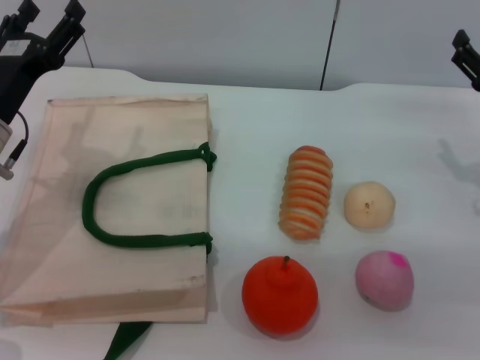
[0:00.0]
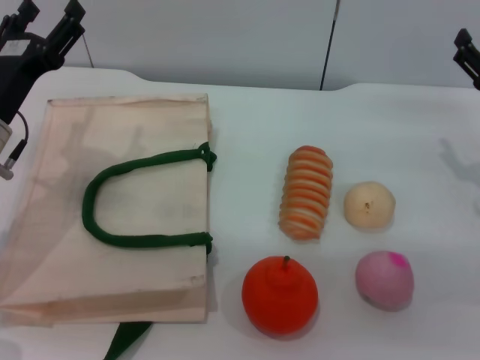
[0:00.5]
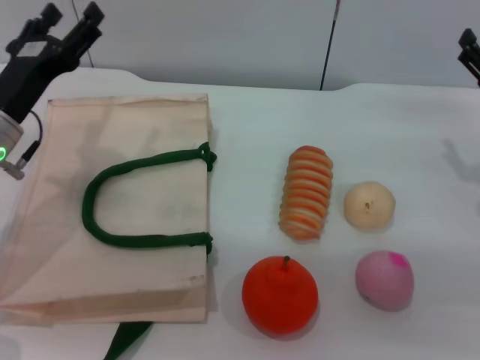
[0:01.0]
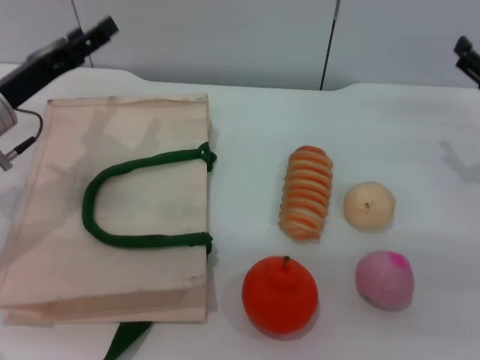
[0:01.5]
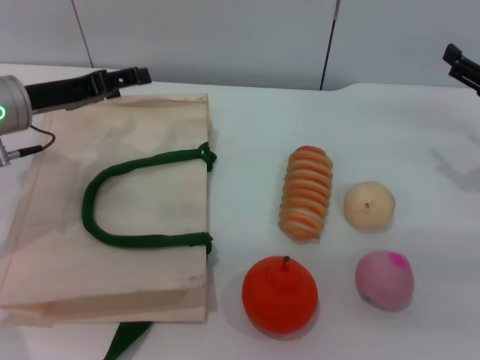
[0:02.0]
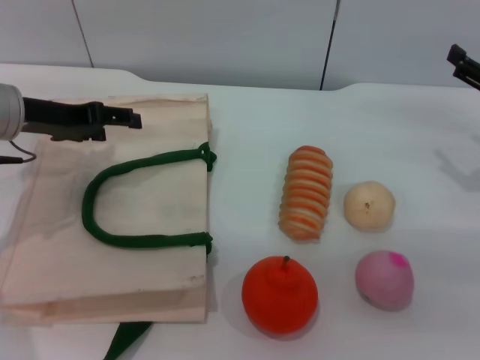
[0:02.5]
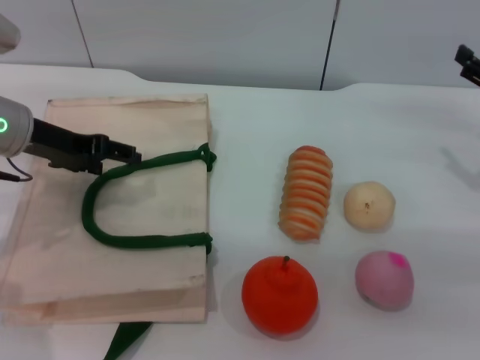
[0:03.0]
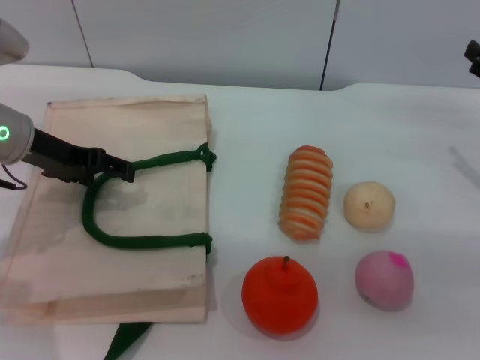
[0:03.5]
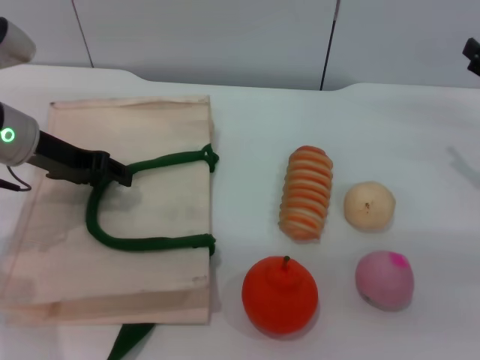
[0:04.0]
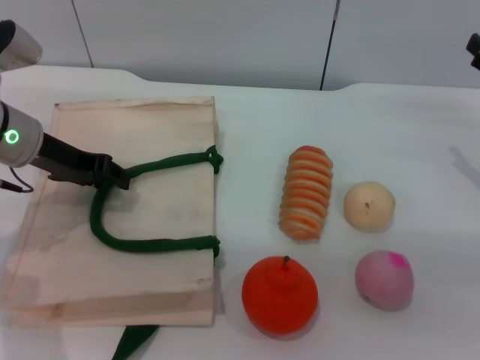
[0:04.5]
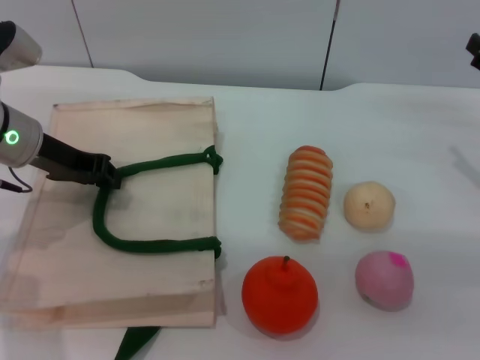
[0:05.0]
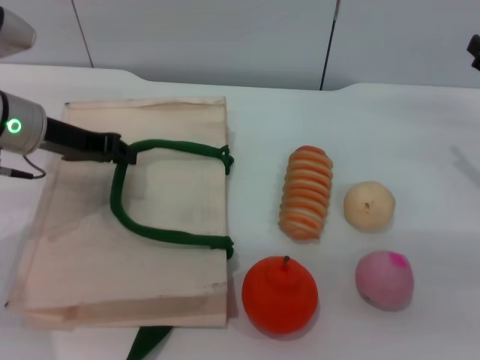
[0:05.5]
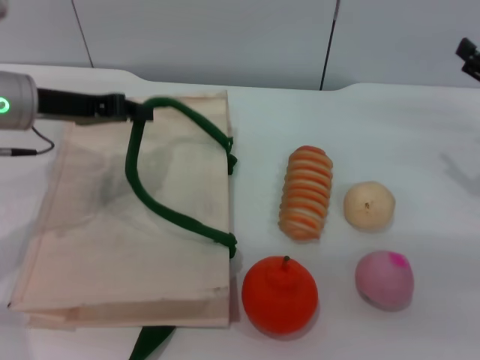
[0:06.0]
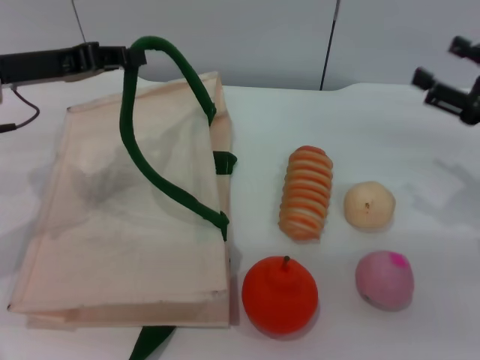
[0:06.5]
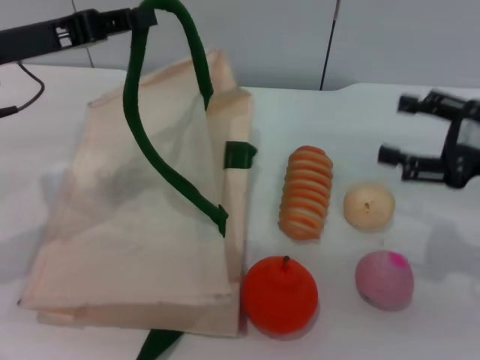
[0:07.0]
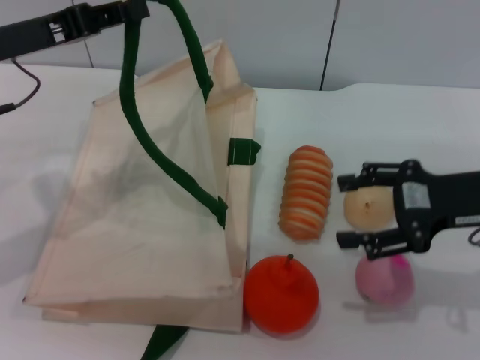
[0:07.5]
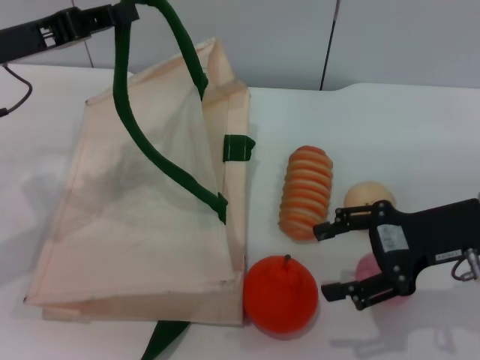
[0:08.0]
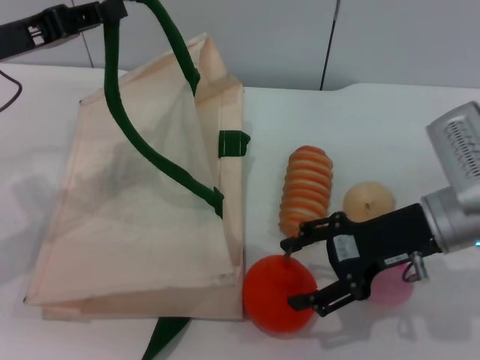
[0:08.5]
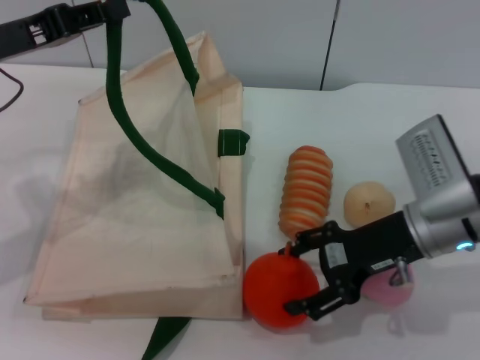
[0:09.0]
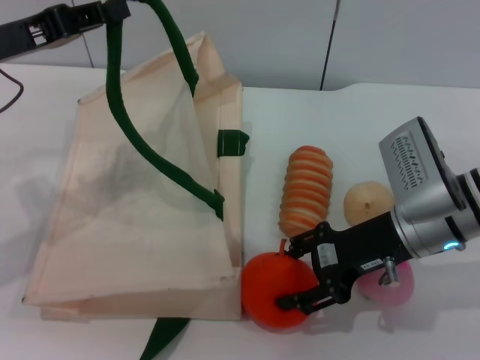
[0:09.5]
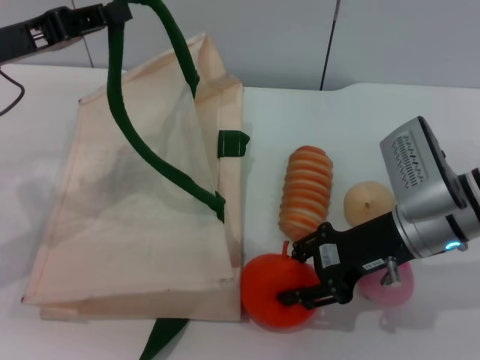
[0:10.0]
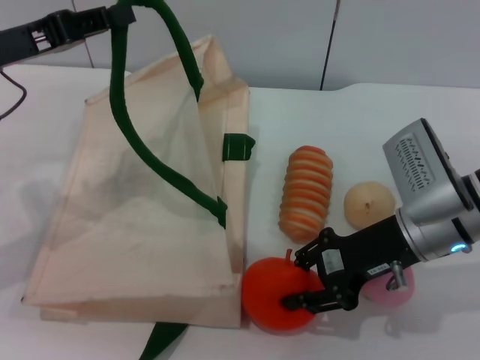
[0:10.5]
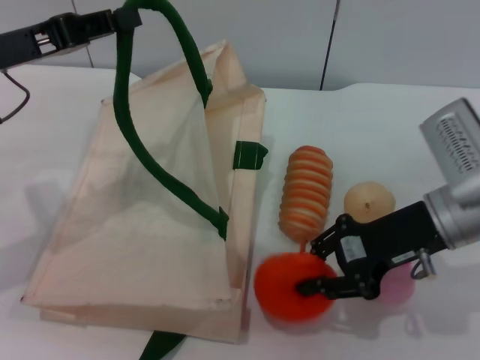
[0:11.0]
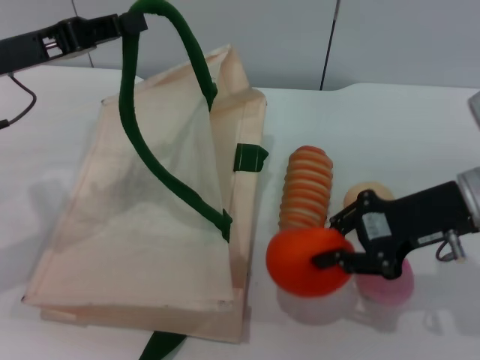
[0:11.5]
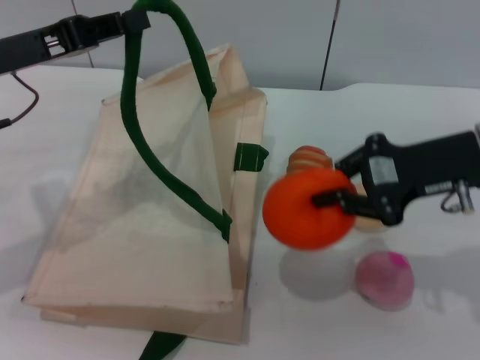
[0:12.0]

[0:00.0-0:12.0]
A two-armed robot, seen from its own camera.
Task of the whole recording: pick up the orange and peach from the table and place it in the white handbag.
Step, 0:00.0 to 0:05.5: Lift the woven bag with the left gripper to open it.
Step, 0:06.0 to 0:11.0: Pick up the orange with the right gripper.
0:00.0 to 0:02.0: The left gripper moves some 5 cm.
0:04.0 to 0:06.0: The left gripper closes up.
0:06.0 to 0:08.0: The right gripper moves to the left, some 10 cm.
0:08.0 to 0:10.0: The right gripper shifts about 5 cm to the left, and closes its fingers.
0:10.0 to 0:12.0: The right gripper heads upward, covering some 10 cm, and closes its fingers.

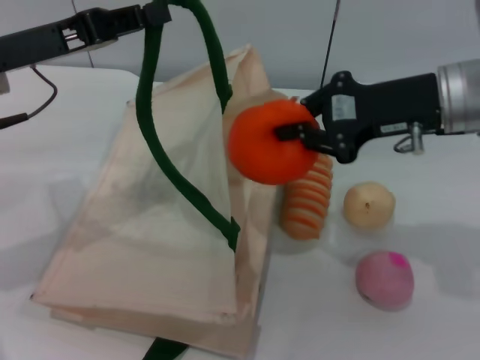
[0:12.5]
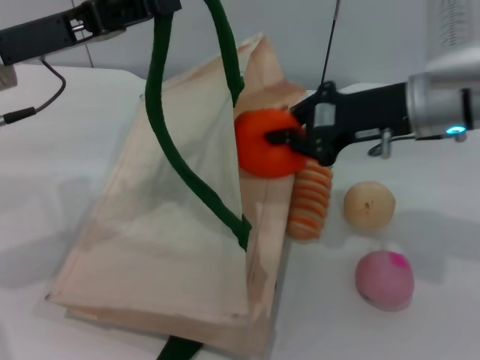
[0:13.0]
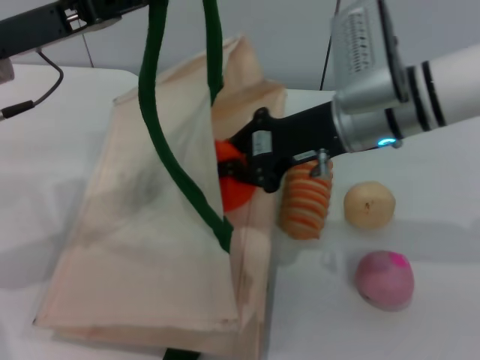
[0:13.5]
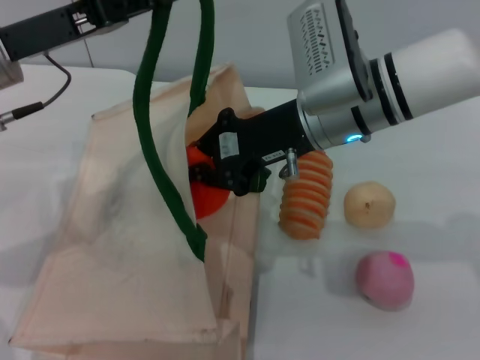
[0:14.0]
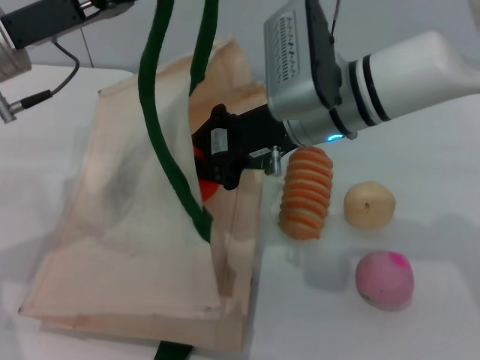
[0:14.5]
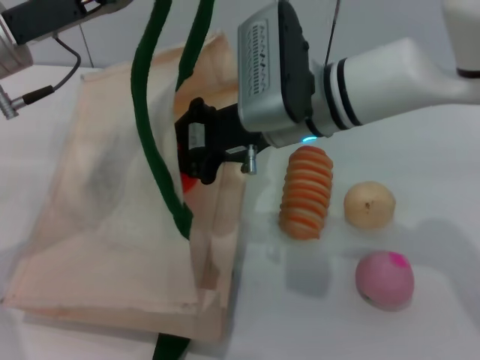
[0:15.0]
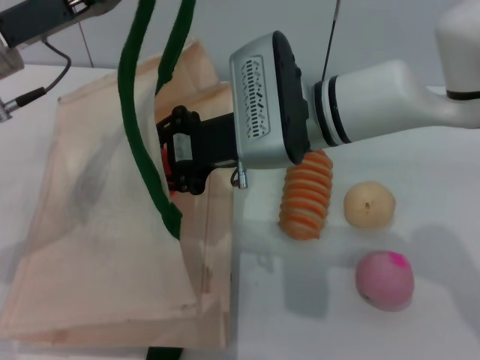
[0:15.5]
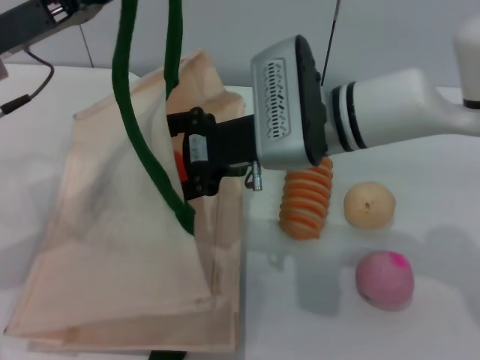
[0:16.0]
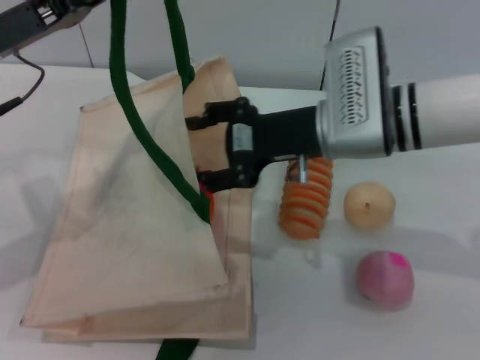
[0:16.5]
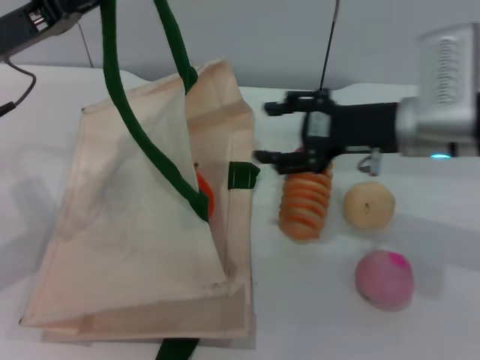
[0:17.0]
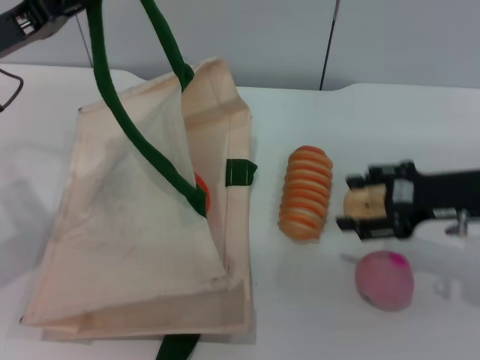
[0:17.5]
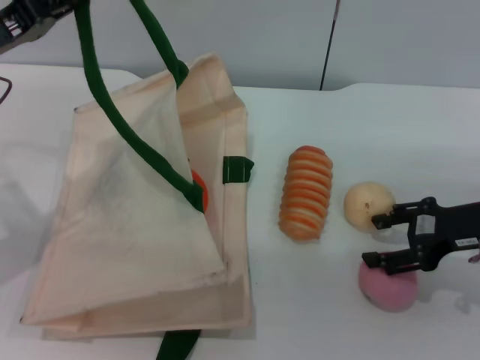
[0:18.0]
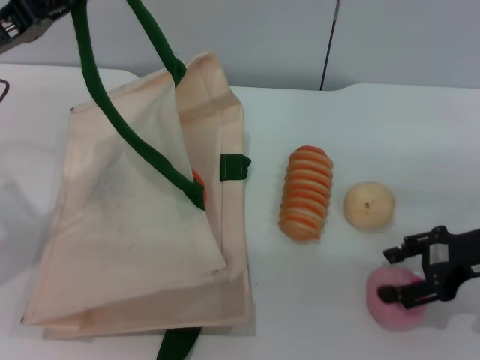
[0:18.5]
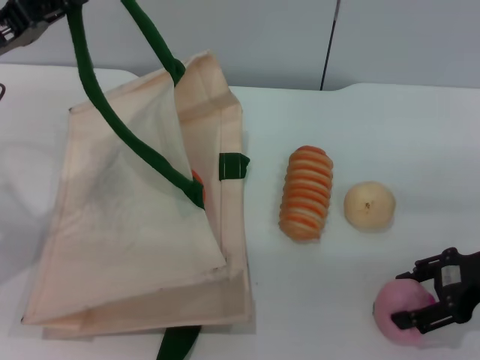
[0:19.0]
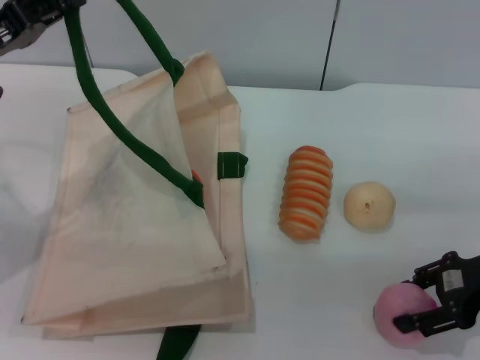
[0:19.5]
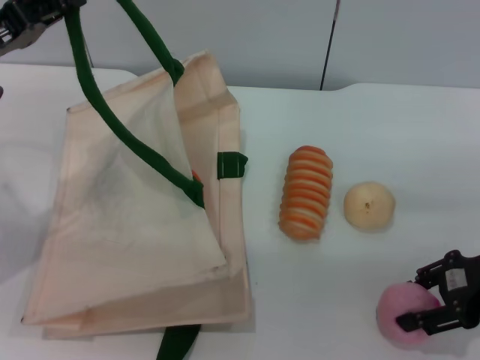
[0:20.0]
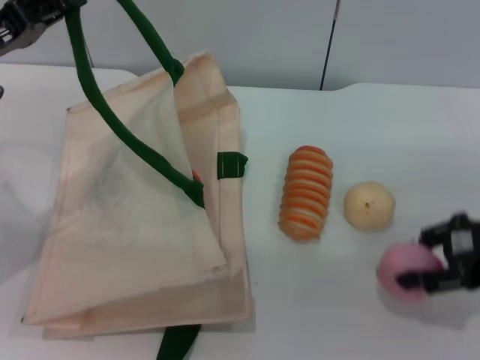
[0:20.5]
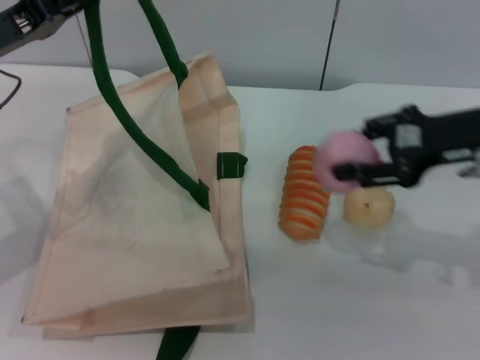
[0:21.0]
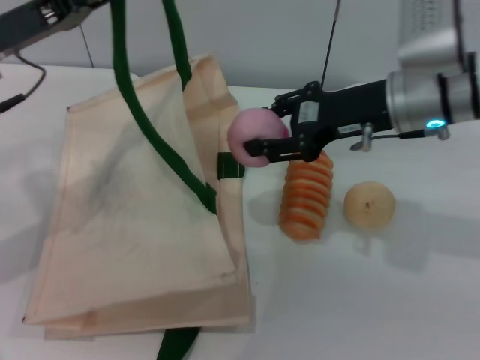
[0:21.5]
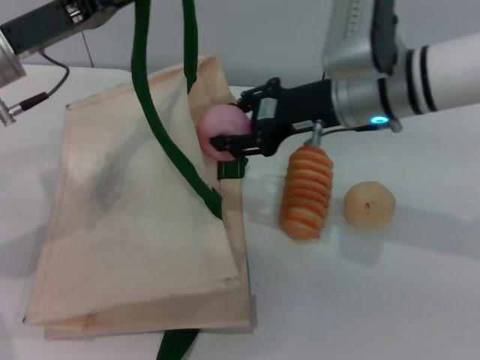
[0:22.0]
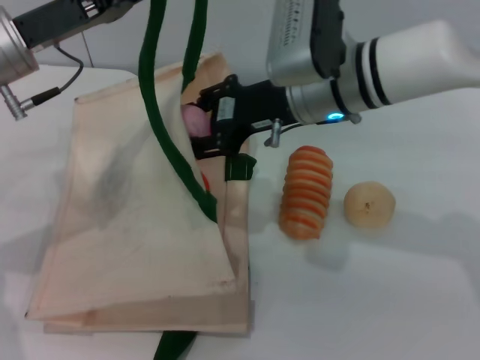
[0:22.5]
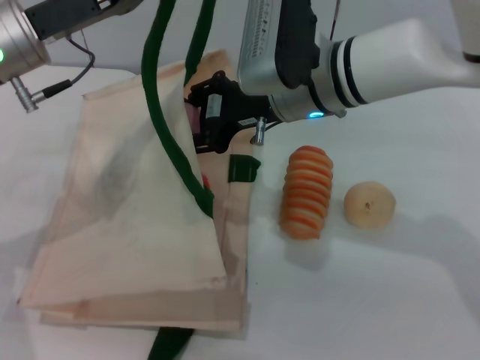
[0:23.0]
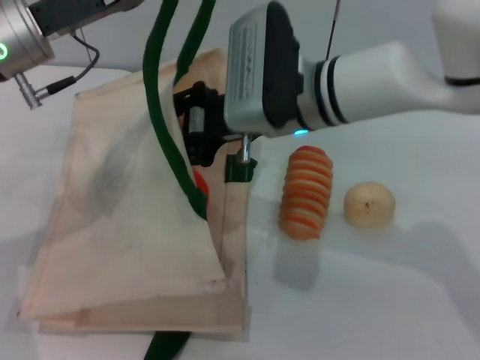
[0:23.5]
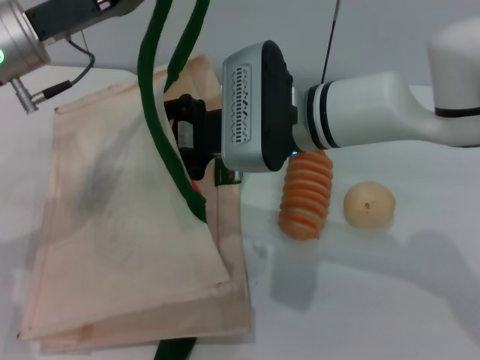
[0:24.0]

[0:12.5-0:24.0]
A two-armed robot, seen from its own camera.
Task of the whole recording: pick up the orange and peach from the table and place it in the white handbag.
Step, 0:12.5 to 0:17.0: Place the orange into the woven bag with the right gripper.
Step, 0:17.5 to 0:20.5: Pick up the peach with the right gripper.
0:12.5 to 0:14.5: The right gripper heads to the left, covering some 15 cm.
0:14.5 to 0:16.5: The right gripper opens.
0:16.5 to 0:18.5: The right gripper goes approximately 20 cm to the right.
0:18.5 to 0:20.0: There are only small adjustments of the grippers.
0:20.0 to 0:22.0: The right gripper heads to the left and forward, covering roughly 20 cm. Meanwhile the left gripper goes about 5 cm to the right.
0:22.0 to 0:24.0: The right gripper moves to the left, about 10 cm.

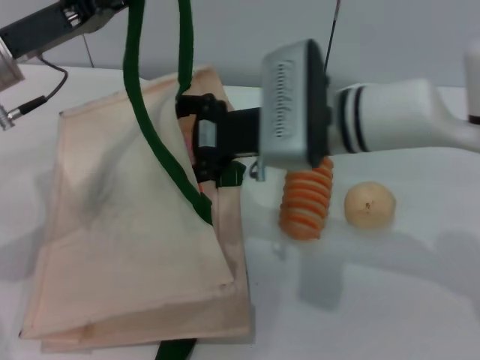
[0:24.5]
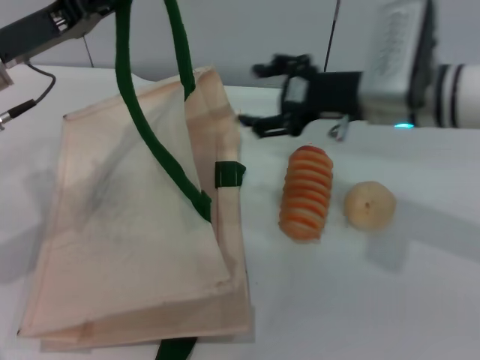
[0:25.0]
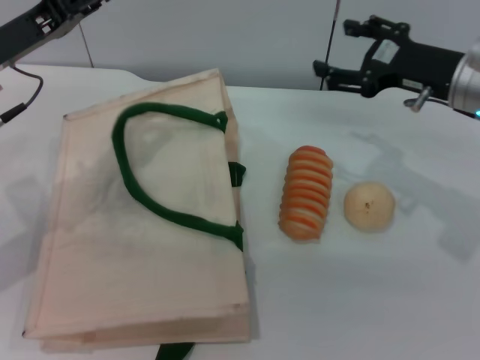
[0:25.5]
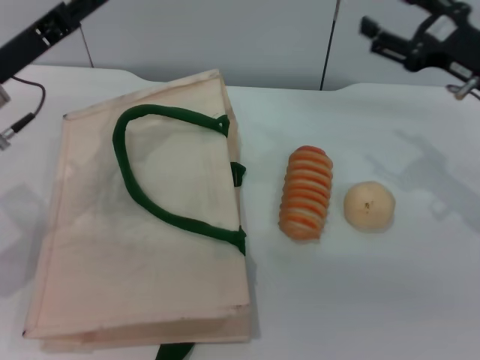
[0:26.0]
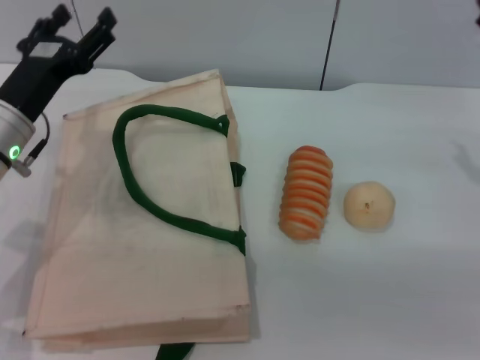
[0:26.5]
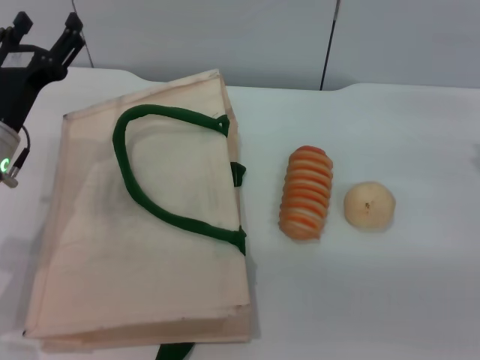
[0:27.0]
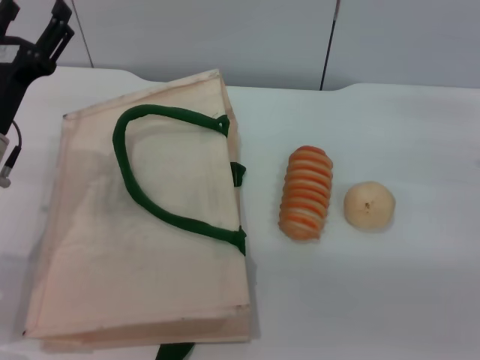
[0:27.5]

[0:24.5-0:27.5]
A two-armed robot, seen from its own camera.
Task of the whole recording: pick up the orange and peach from the table and place it in the white handbag.
0:24.5 to 0:26.0: The left gripper opens its fingers. The right gripper goes about 20 cm to the right.
0:26.0 to 0:27.5: The right gripper is displaced to the right, downward and backward by some 10 cm. Meanwhile the left gripper moves roughly 5 cm.
